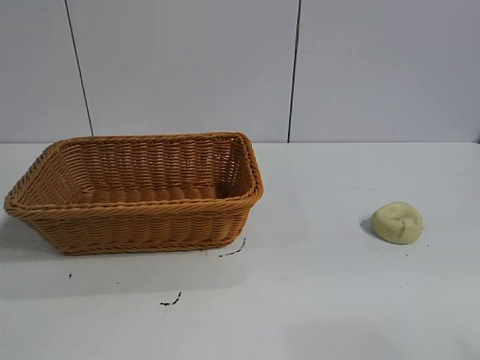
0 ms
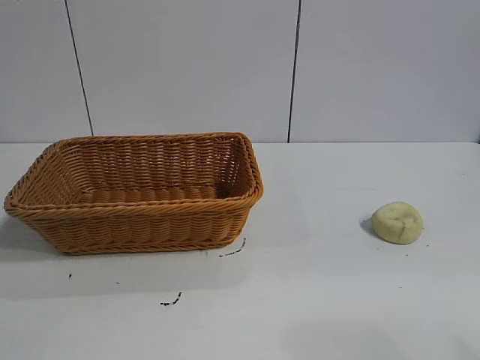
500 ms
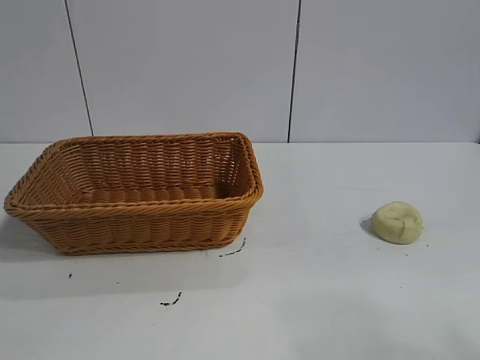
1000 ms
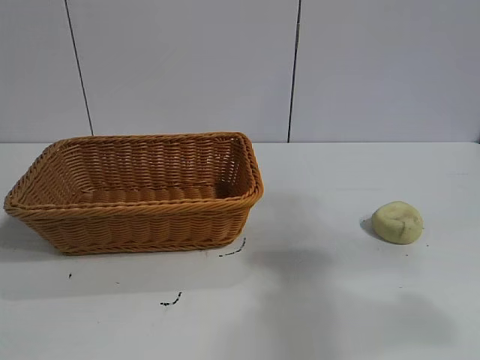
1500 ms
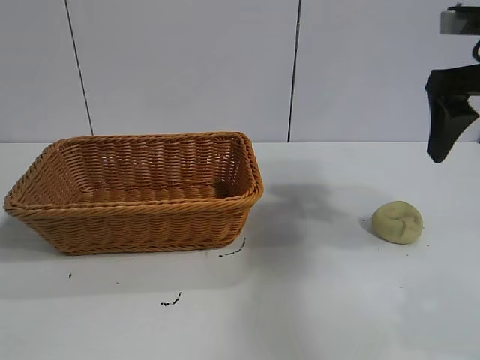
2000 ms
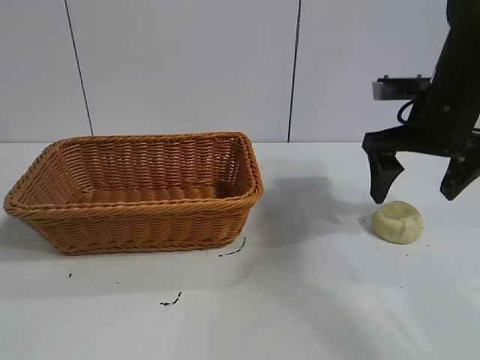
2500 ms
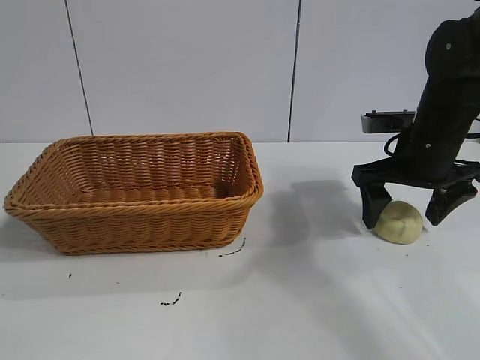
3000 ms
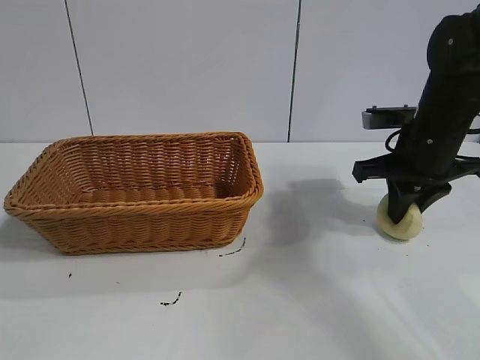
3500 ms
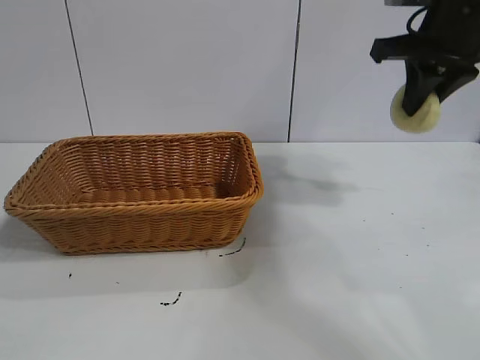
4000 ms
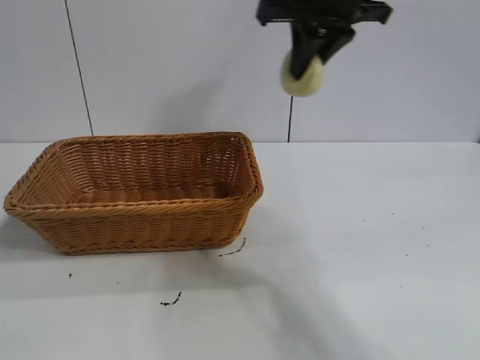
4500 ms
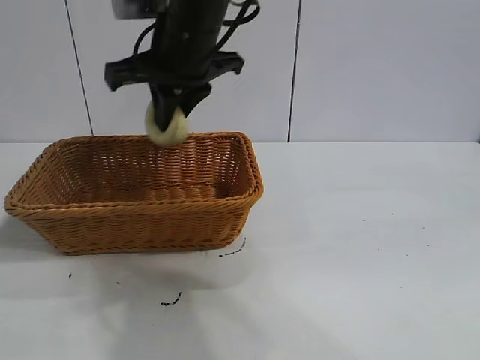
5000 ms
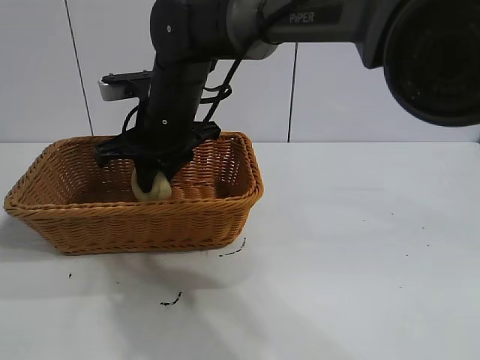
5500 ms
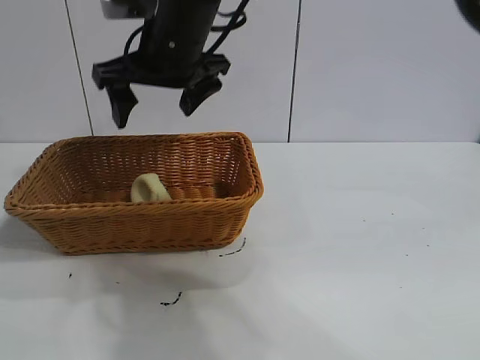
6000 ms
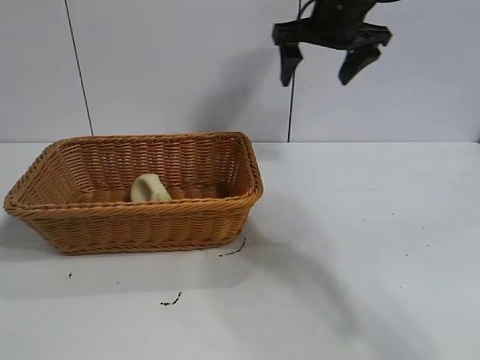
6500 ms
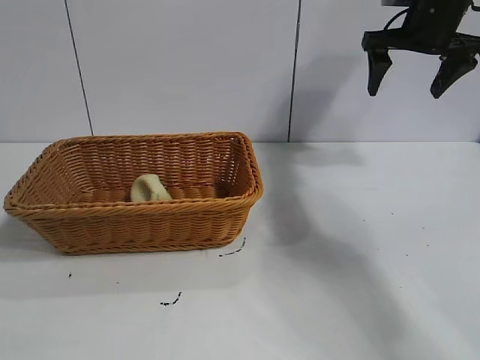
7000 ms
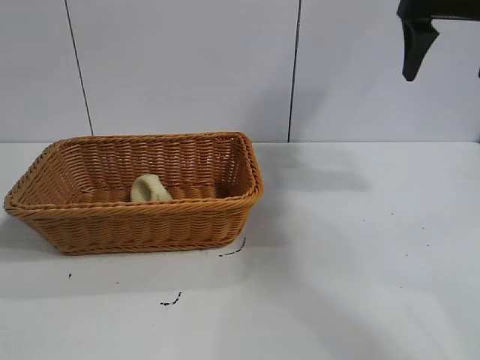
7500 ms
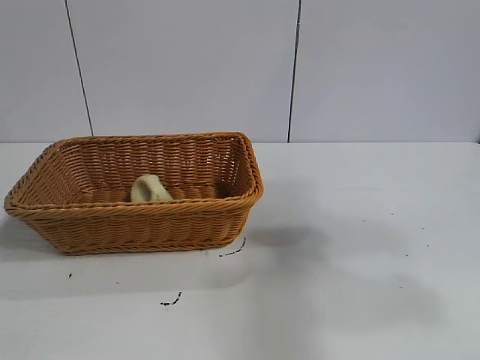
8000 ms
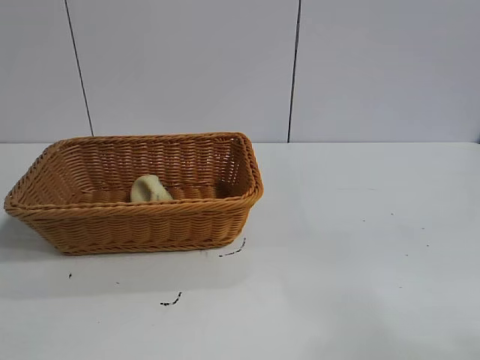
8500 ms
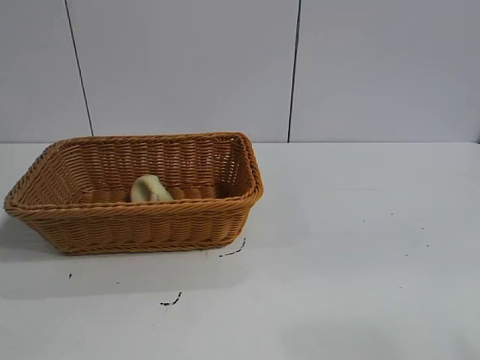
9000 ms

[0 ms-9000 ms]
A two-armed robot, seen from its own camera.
Task of the whole recording: pick up the egg yolk pastry and put it into the basket.
Step, 0 ms to 3500 ms: Grasp egg yolk pastry with right gripper.
Step, 4000 ms to 5500 ms: Place the egg yolk pastry in the basket with right gripper.
